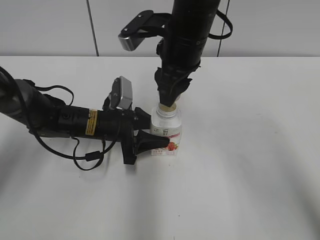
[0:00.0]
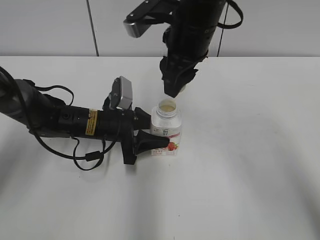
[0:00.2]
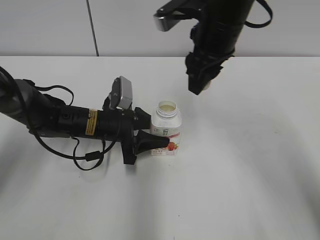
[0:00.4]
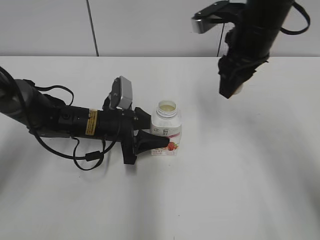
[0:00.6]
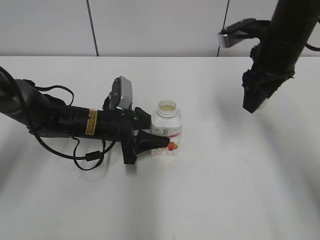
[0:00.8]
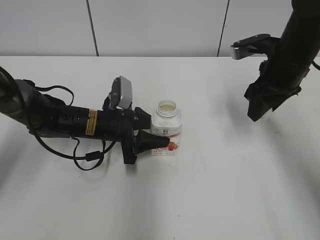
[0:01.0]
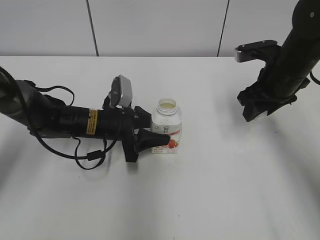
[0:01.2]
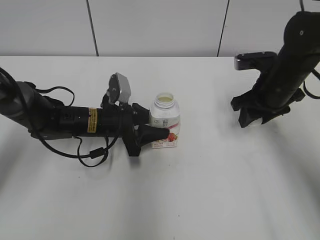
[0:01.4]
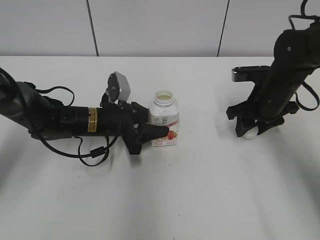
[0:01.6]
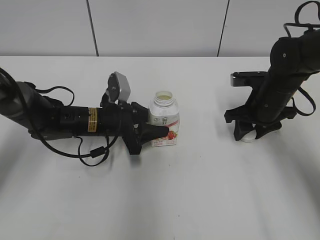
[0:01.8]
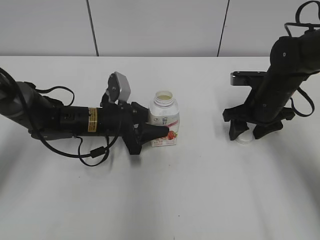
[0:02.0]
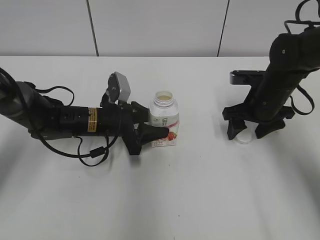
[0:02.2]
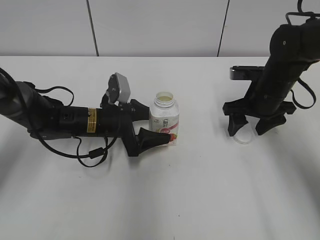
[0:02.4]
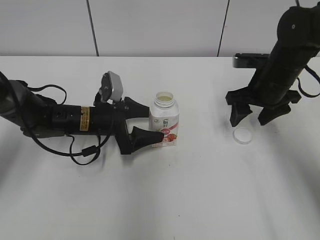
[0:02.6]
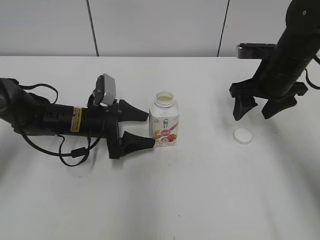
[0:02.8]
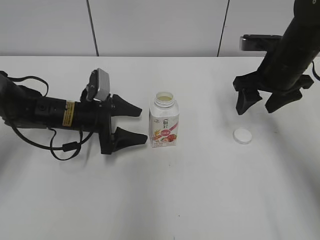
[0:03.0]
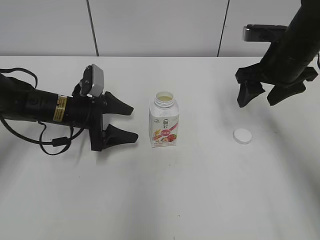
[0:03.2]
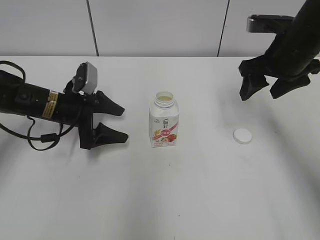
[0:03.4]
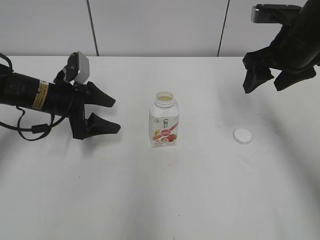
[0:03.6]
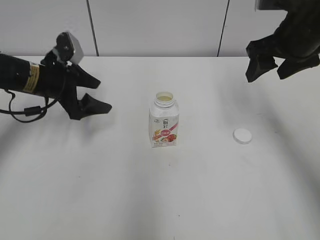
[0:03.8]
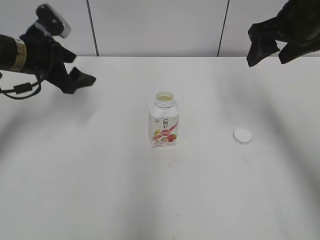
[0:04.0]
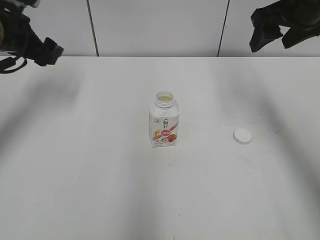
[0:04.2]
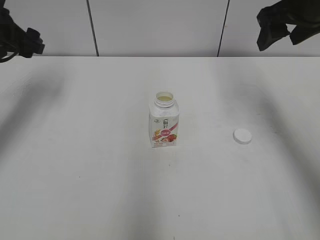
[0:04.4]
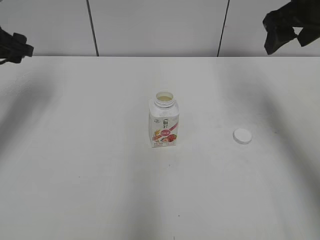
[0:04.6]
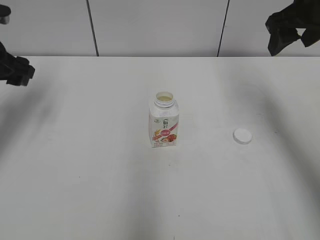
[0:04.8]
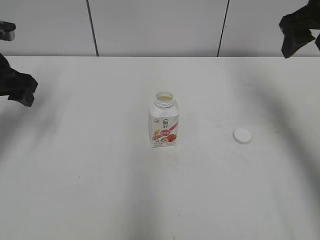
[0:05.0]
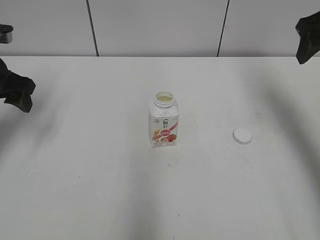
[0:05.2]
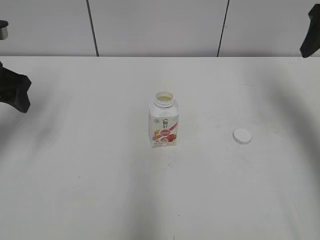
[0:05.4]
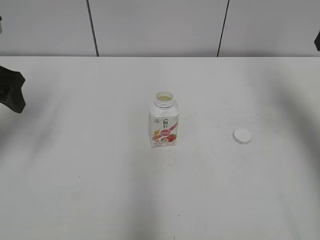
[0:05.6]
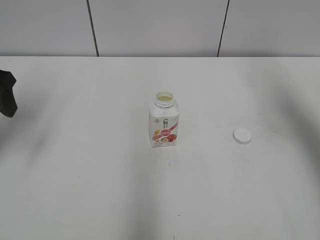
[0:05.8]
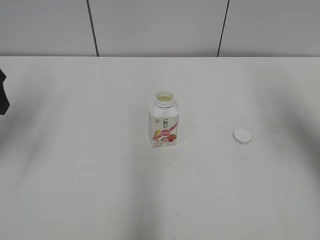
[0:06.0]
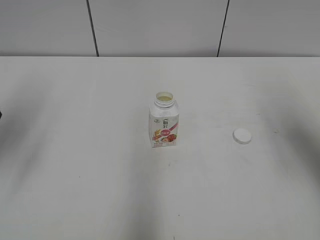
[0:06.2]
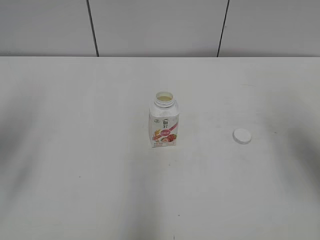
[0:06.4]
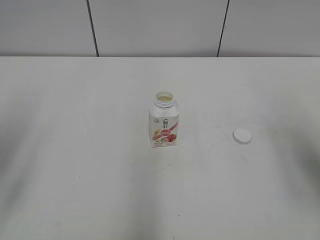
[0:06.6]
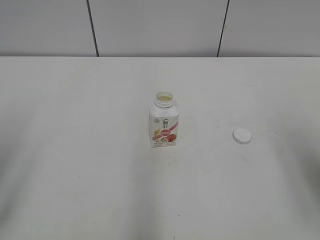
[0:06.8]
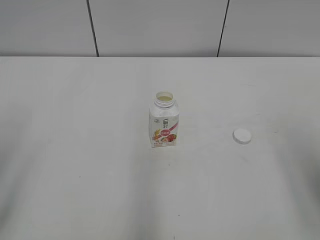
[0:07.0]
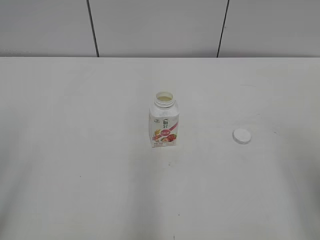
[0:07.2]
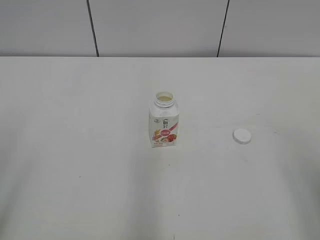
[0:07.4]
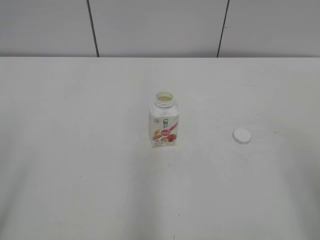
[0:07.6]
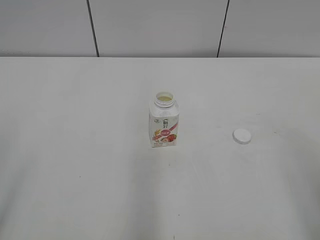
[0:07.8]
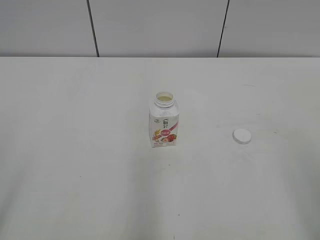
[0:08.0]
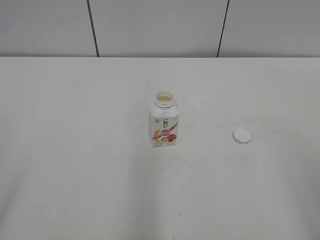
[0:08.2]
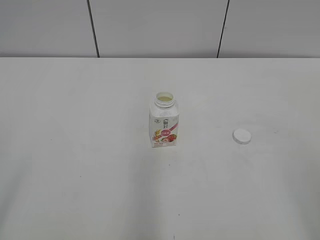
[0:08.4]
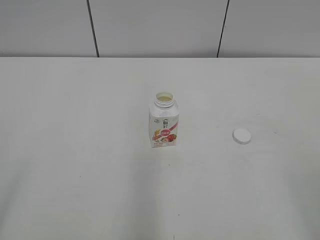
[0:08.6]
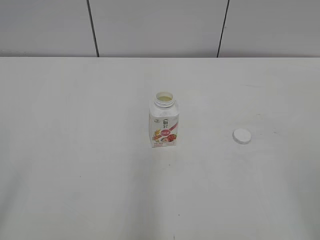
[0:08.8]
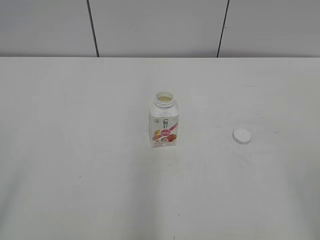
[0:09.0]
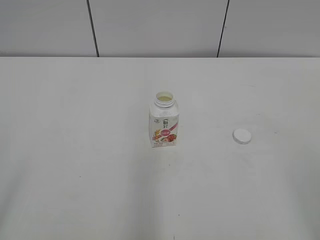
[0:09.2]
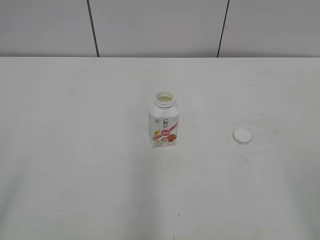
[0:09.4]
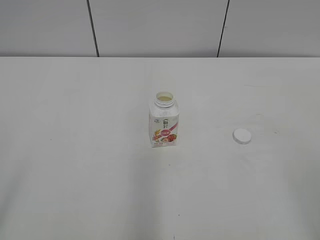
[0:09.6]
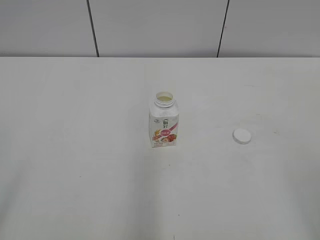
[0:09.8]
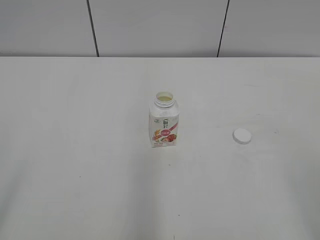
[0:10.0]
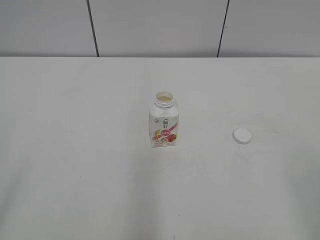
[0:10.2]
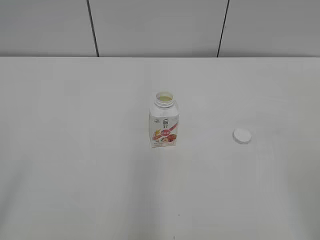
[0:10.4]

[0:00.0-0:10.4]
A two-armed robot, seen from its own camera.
0:00.0 to 0:01.4: The right gripper travels to the right and downward by about 20 cm.
0:01.4 to 0:03.0: The right gripper opens up. Meanwhile the left gripper opens.
0:03.0 to 0:04.4: The right gripper is displaced upward by roughly 10 cm, while the left gripper is displaced upward and to the left by about 20 cm.
0:04.4 to 0:06.0: The left gripper moves backward, roughly 10 cm, while the right gripper is displaced backward and to the right by about 10 cm.
0:06.0 to 0:07.4: Both grippers travel together backward, approximately 20 cm.
0:09.0 to 0:10.4: The two grippers keep their place.

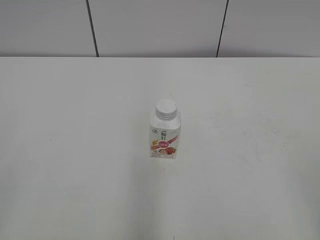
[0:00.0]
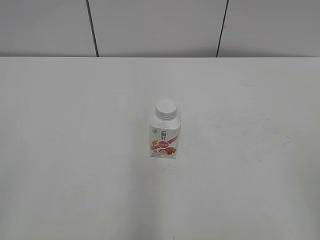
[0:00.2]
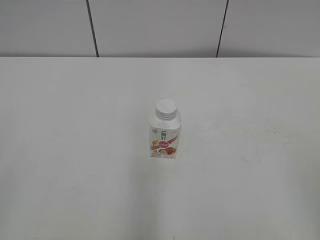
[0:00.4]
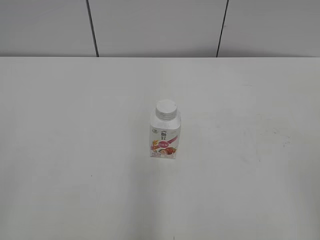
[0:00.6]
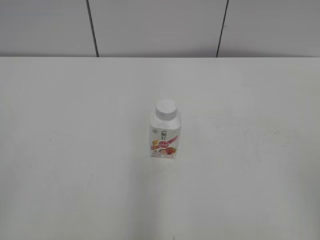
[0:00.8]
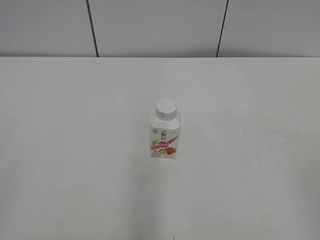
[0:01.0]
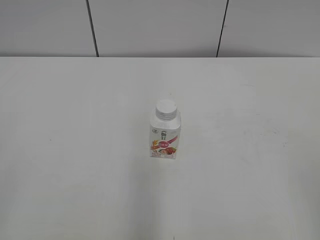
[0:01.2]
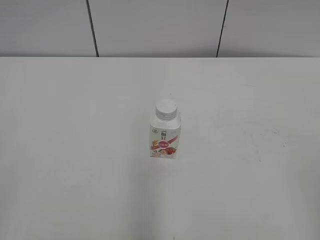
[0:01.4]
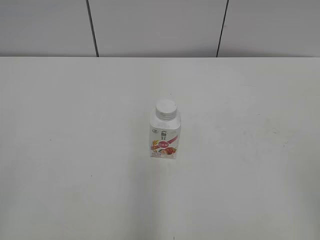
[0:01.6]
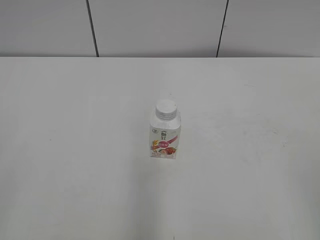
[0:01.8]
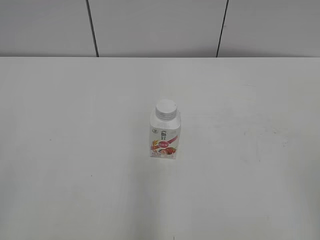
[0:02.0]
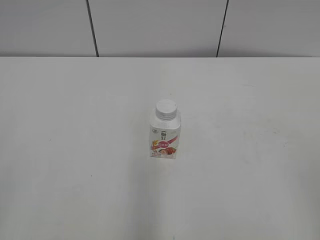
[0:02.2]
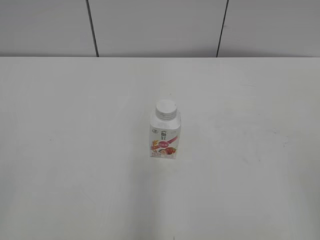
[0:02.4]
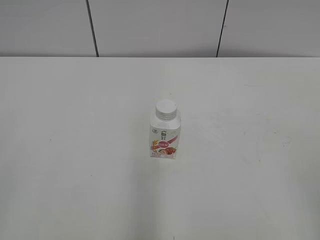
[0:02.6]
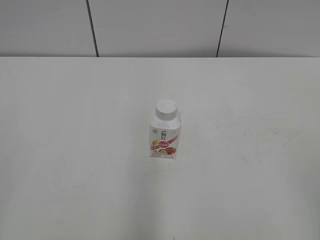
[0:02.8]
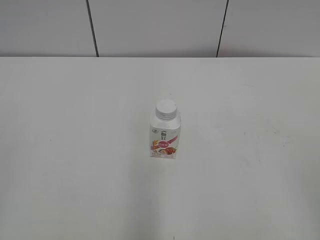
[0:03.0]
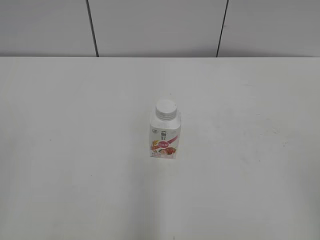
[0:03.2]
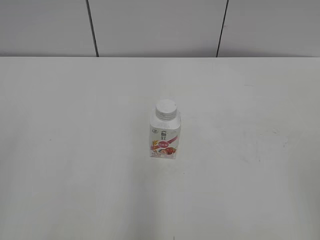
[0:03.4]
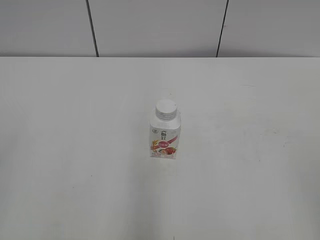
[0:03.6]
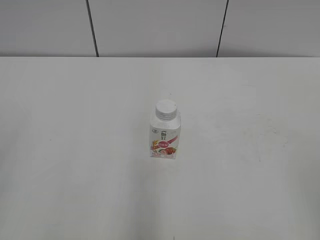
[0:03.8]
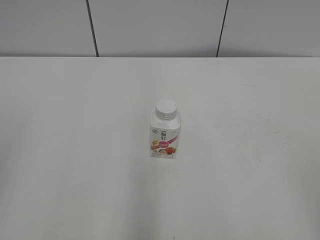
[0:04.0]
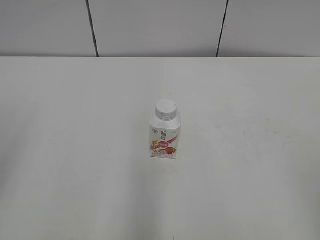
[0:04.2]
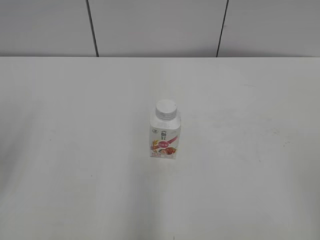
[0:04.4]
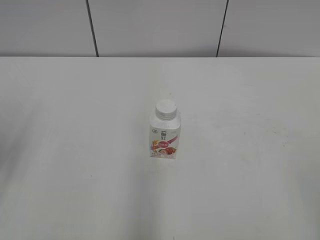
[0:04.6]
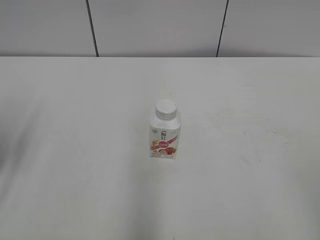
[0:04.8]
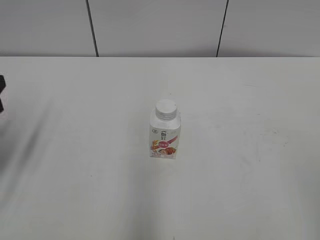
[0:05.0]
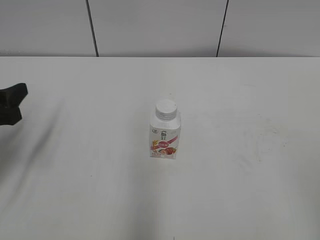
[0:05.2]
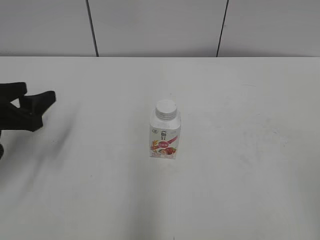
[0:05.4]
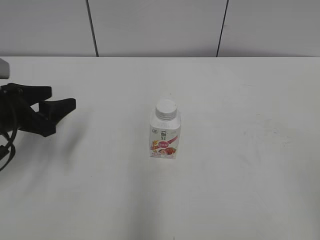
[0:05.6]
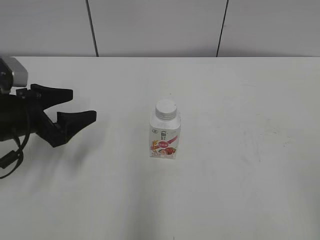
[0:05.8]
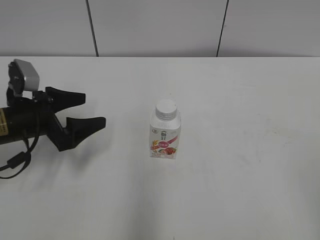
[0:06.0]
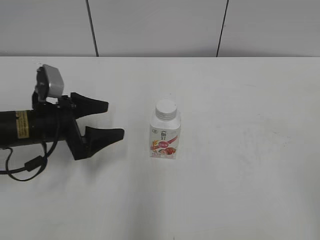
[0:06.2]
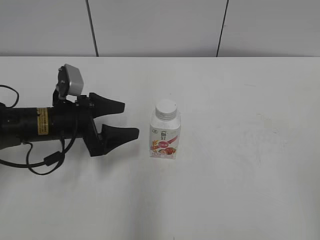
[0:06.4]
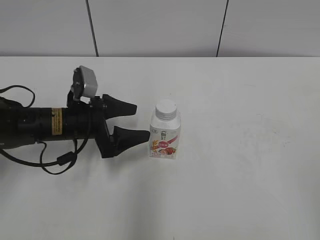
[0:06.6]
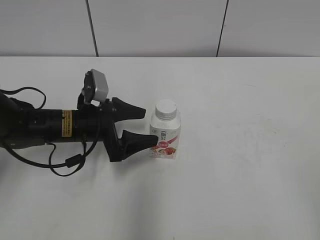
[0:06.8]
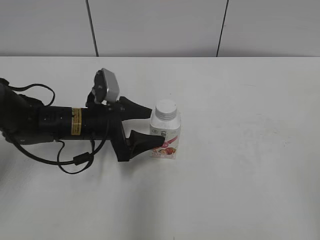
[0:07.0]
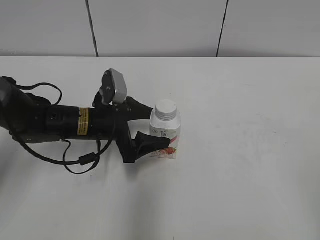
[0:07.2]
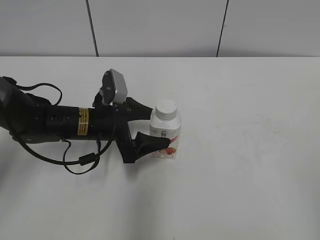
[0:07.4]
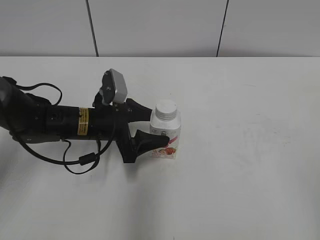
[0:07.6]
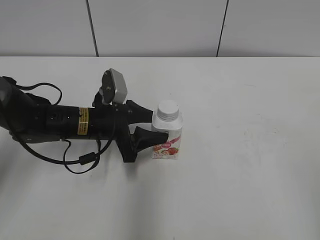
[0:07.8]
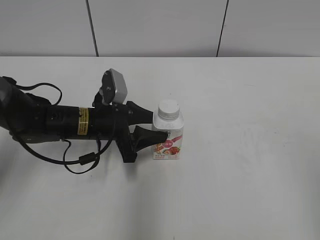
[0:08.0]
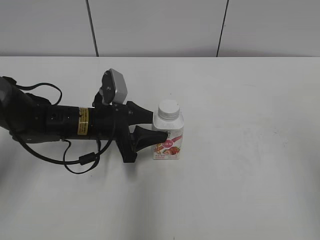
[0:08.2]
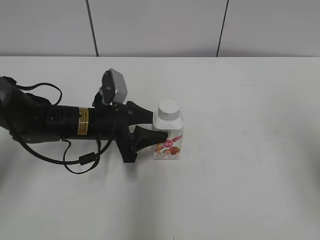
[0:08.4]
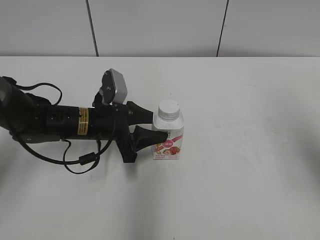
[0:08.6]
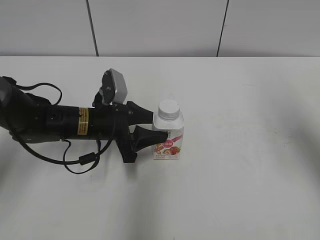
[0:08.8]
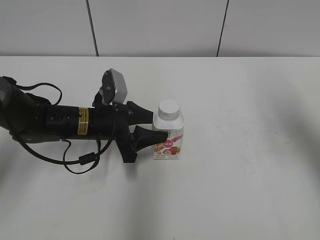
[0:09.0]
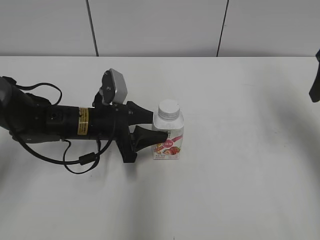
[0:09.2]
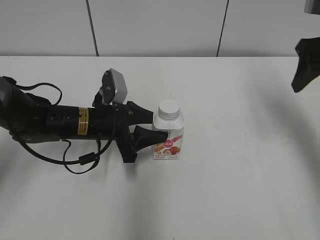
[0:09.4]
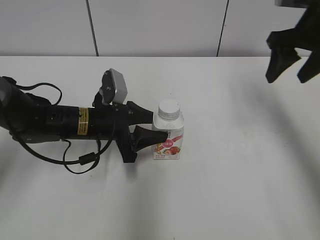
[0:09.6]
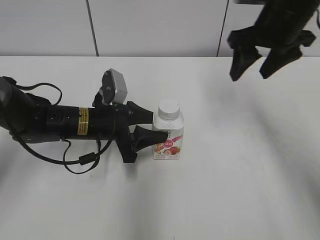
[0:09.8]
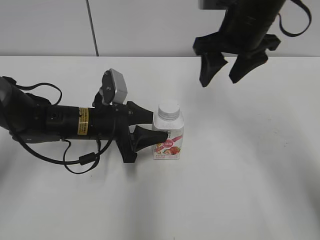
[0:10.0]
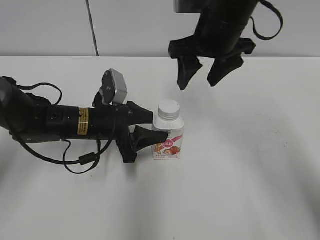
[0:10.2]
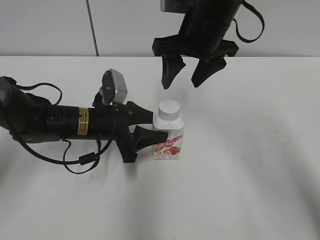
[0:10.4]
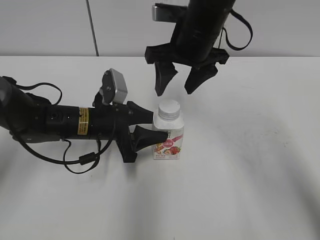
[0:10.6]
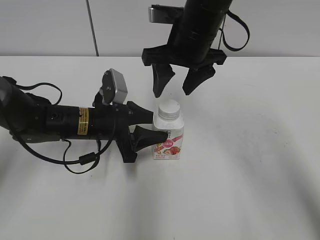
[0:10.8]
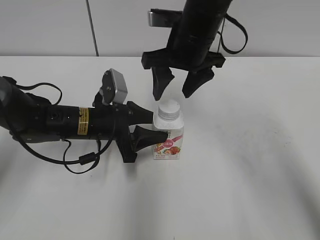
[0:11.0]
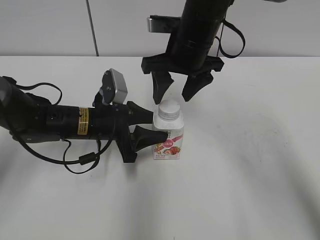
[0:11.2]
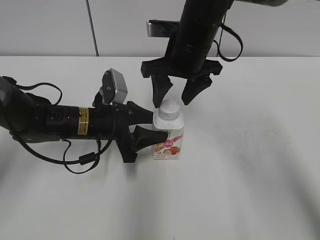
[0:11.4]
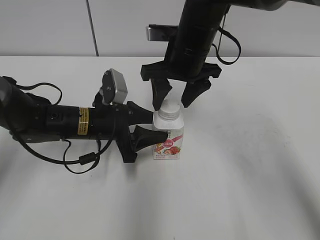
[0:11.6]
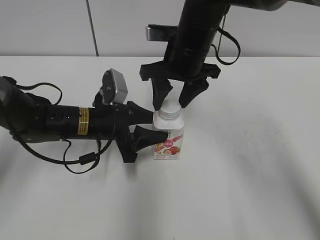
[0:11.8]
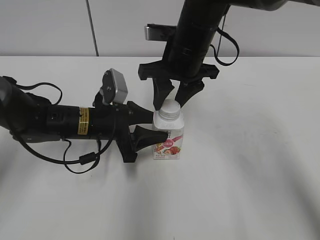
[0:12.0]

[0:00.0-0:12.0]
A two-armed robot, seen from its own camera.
Step, 0:00.0 to 0:07.8: Grab the Yili Changqing with the left hand.
0:04.4 to 0:06.0: The left gripper moves forward, downward and to the right, some 20 cm, and opens up.
0:06.0 to 0:07.6: The left gripper travels to the right by some 10 cm, and closes up.
0:07.6 to 0:09.0: The left gripper closes its fingers, while the right gripper is displaced forward by roughly 30 cm.
0:09.0 to 0:10.4: The right gripper shifts some 25 cm to the left and forward.
0:10.4 to 0:12.0: The right gripper moves some 5 cm, and closes.
